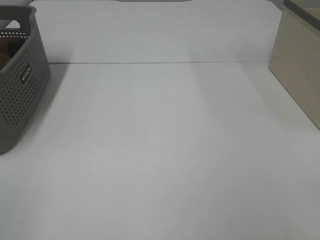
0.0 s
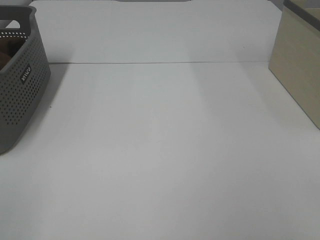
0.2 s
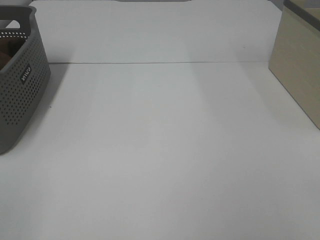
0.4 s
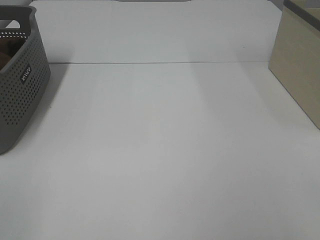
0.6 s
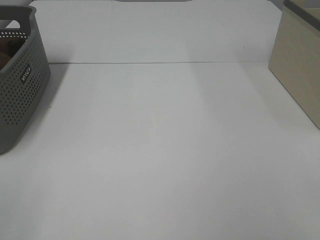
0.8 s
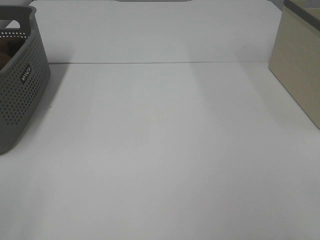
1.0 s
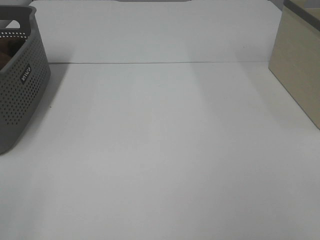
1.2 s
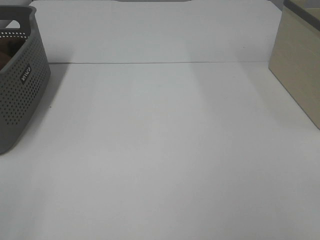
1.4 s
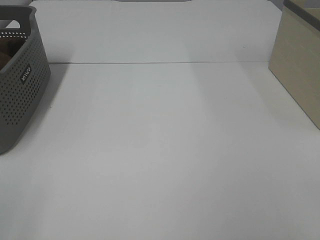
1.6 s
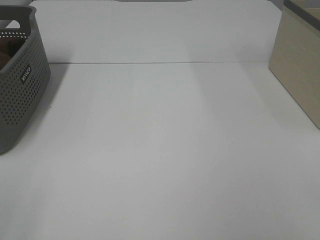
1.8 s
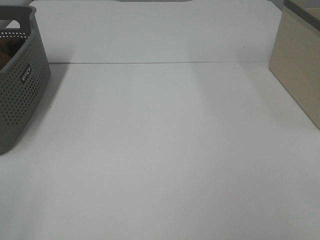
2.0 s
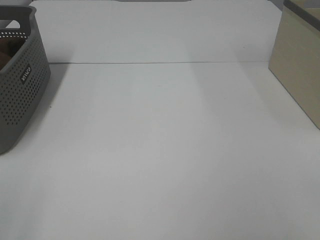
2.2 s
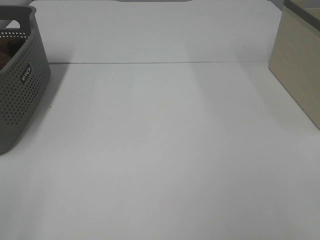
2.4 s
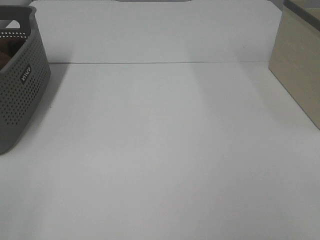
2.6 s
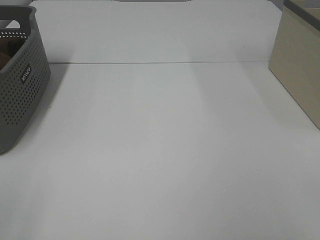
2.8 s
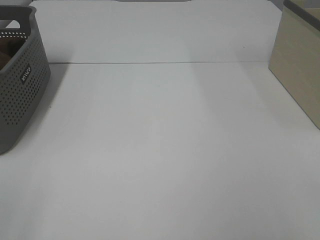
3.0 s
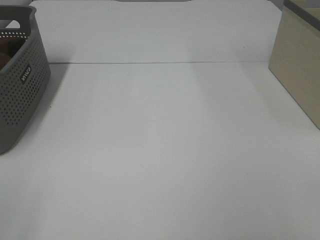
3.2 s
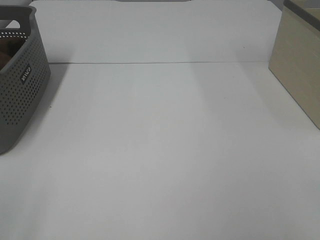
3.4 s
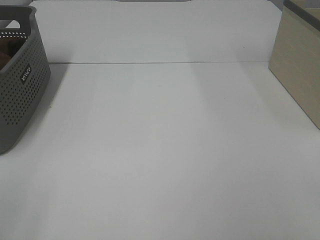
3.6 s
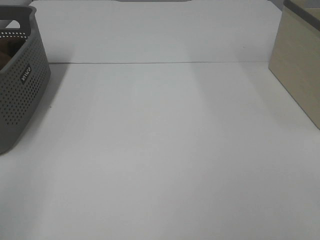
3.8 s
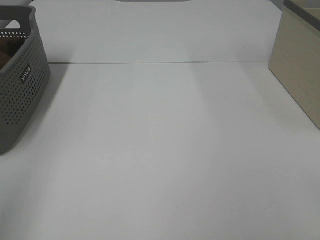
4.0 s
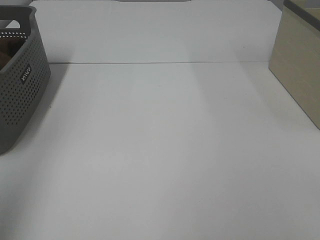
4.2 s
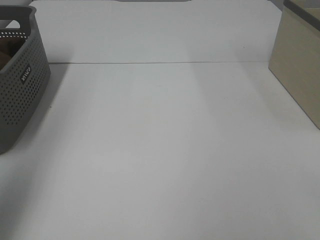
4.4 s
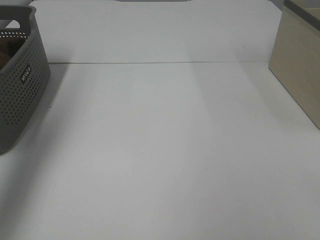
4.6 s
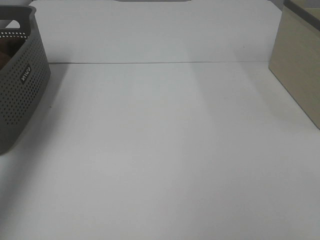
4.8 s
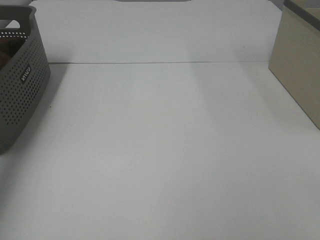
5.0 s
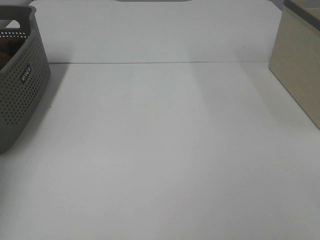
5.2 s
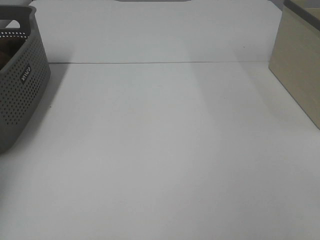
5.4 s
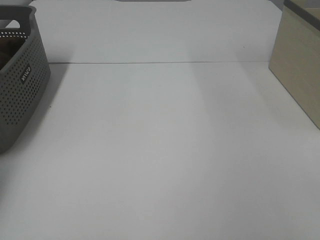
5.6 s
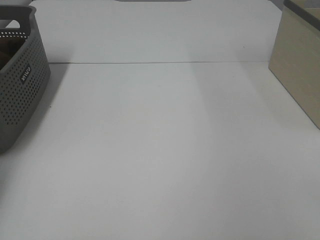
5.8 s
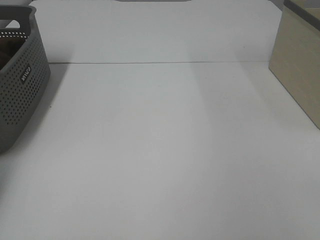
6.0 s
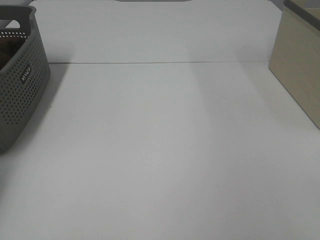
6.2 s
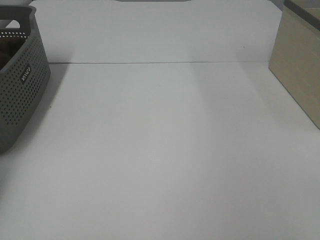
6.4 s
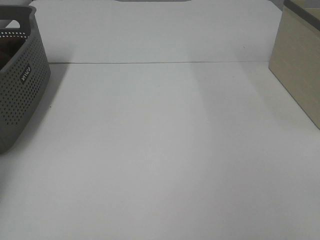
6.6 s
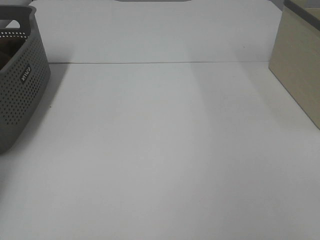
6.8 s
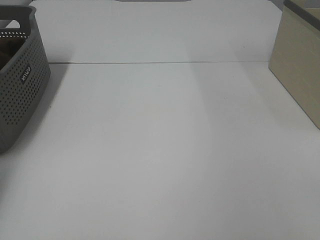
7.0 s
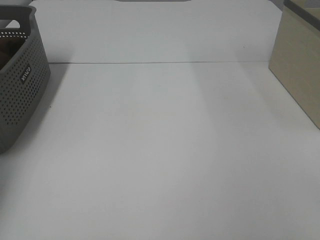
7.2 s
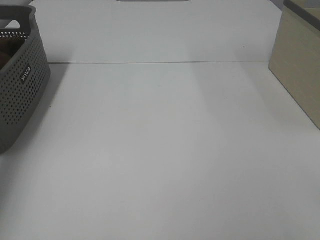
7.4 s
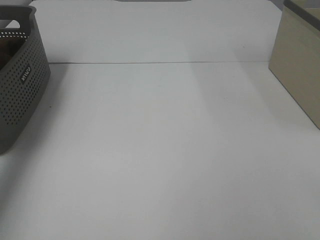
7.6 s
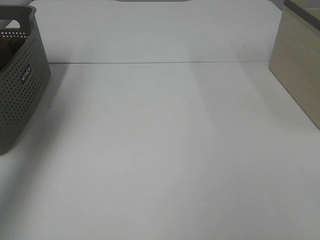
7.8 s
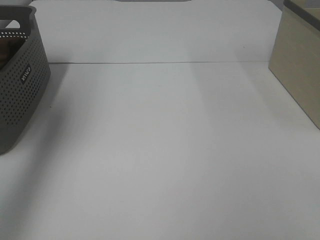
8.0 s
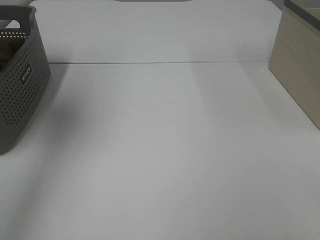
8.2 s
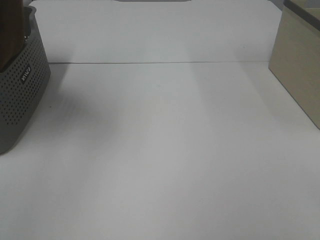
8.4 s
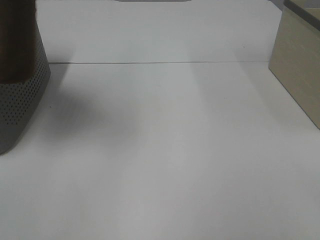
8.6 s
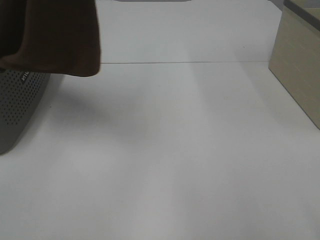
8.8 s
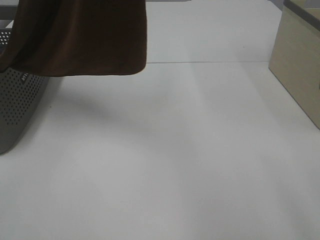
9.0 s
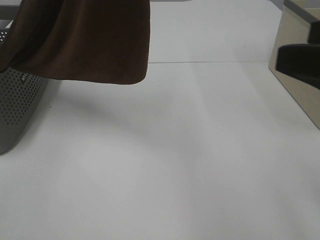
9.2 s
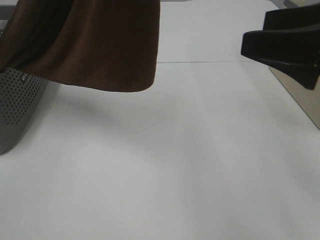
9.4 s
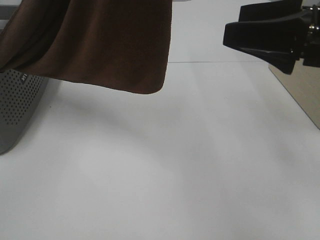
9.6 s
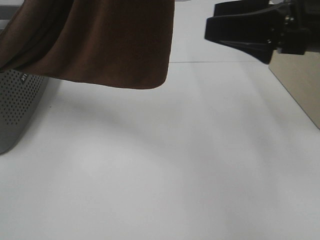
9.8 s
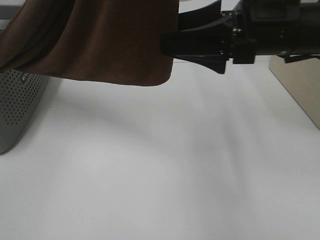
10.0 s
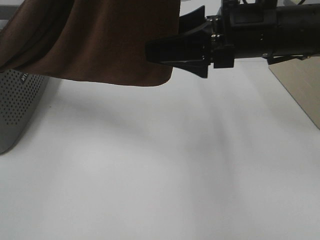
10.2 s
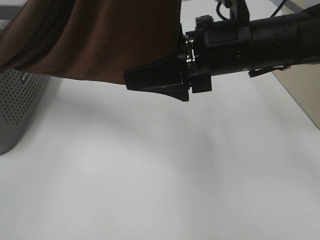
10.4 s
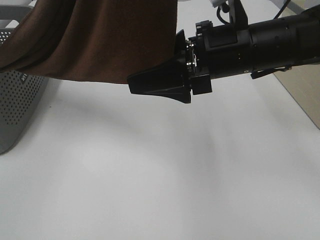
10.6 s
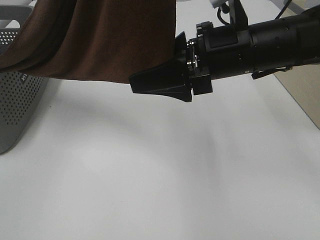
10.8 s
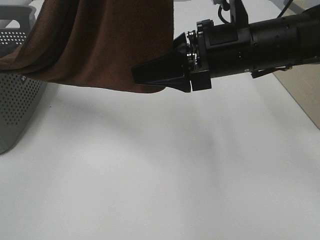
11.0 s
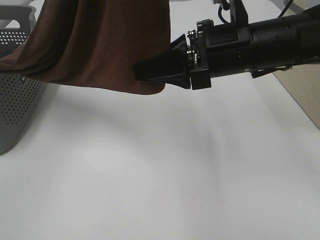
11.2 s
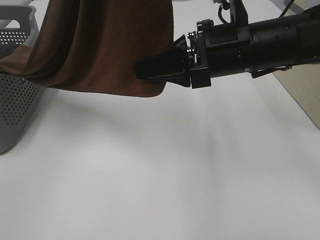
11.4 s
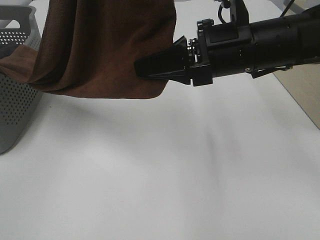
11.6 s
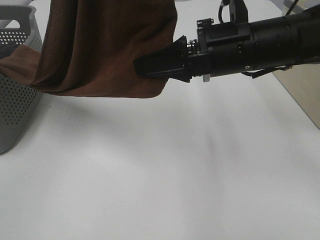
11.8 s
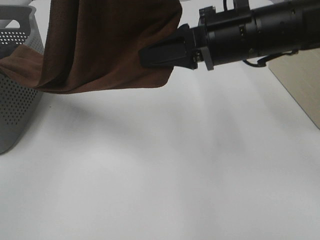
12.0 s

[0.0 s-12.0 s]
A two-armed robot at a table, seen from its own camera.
Task of the whole recording: Remove the towel and place it.
Step, 8.0 to 11.6 s: Right hand: grab a corner of the brown towel and straighten it.
0.0 to 3.0 s: Both grippers stay put.
3.0 to 4.4 s: The left gripper heads forward and upward, covering roughly 25 cm.
4.4 to 6.0 s: The left gripper is displaced forward and downward by roughly 35 cm.
6.0 to 7.6 s: The left gripper shifts roughly 20 cm upward and to the right, and closes up.
7.6 to 9.0 s: The right gripper travels forward by about 10 cm, while the left gripper moves to the right, backward and upward, roughly 30 cm.
9.0 to 10.4 s: The right gripper heads forward, to the left and downward, covering roughly 25 cm.
10.4 to 12.0 s: The right gripper closes its fingers.

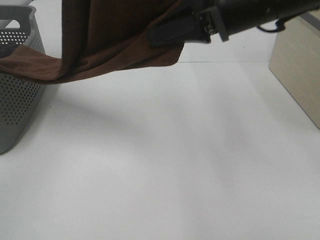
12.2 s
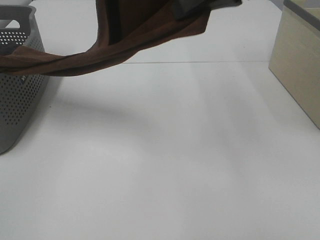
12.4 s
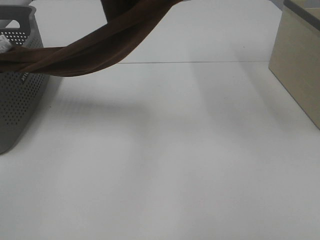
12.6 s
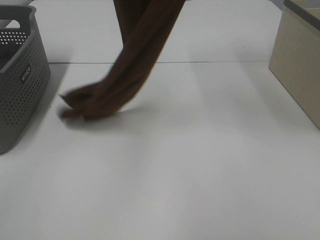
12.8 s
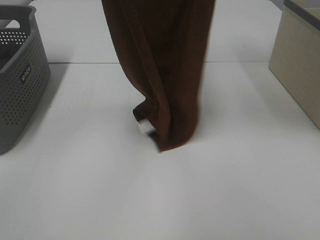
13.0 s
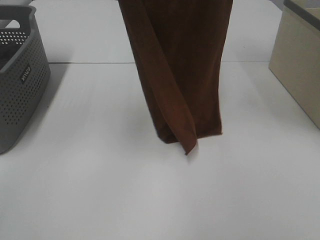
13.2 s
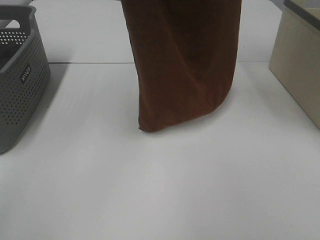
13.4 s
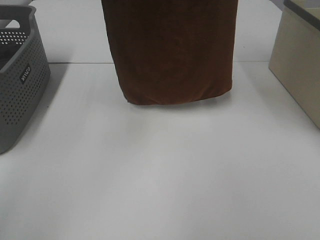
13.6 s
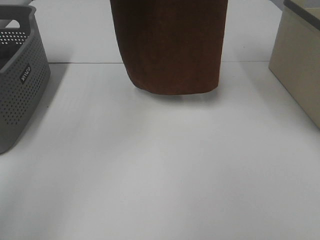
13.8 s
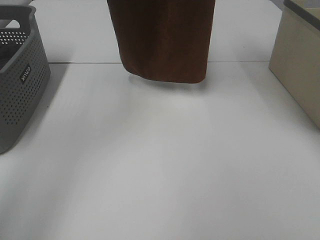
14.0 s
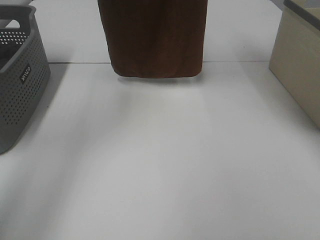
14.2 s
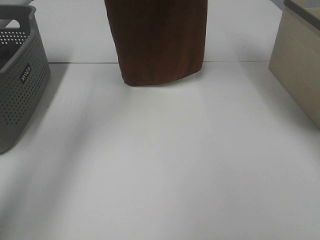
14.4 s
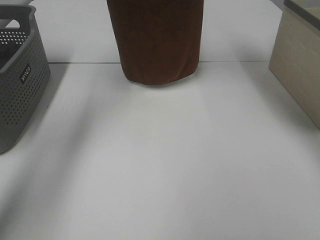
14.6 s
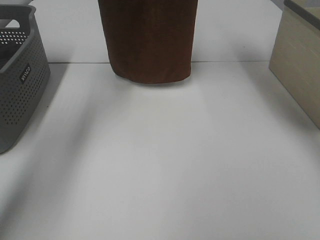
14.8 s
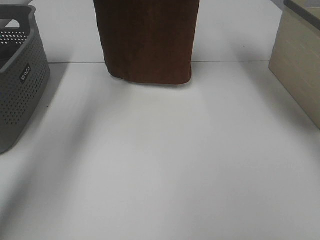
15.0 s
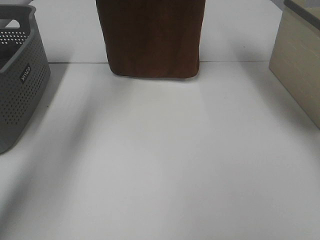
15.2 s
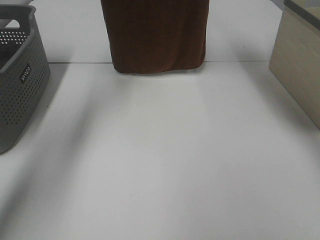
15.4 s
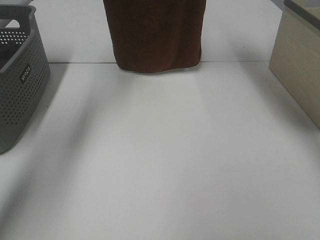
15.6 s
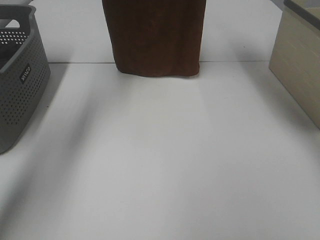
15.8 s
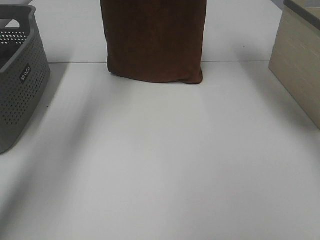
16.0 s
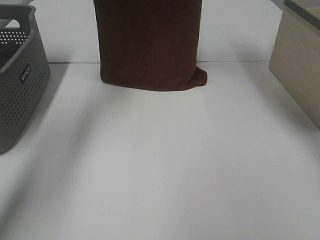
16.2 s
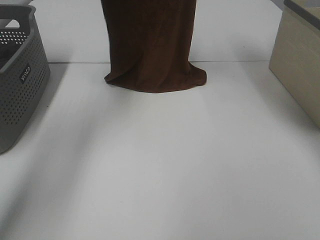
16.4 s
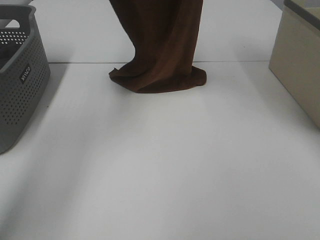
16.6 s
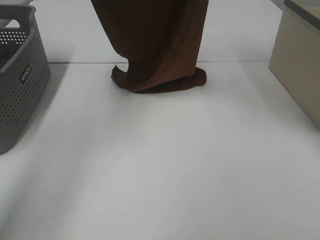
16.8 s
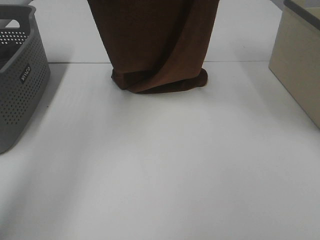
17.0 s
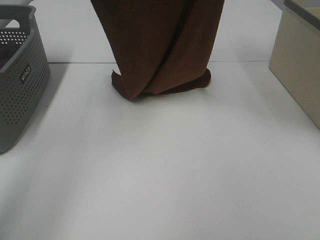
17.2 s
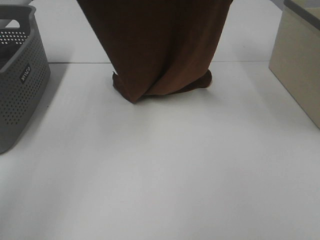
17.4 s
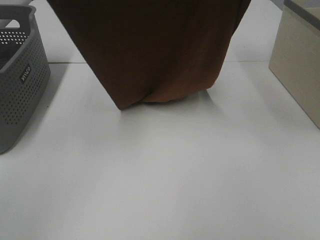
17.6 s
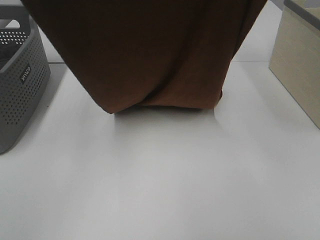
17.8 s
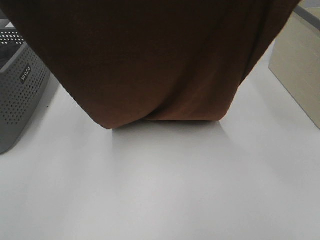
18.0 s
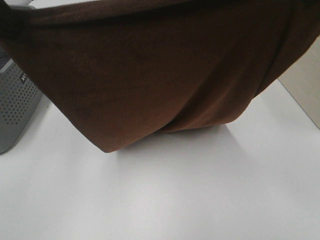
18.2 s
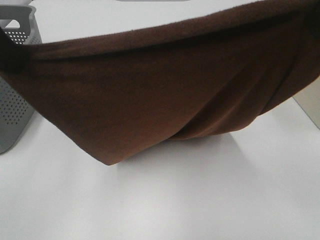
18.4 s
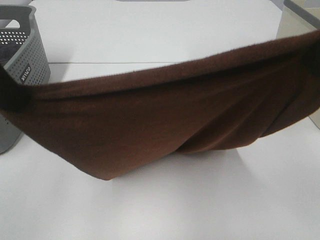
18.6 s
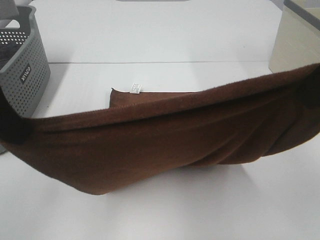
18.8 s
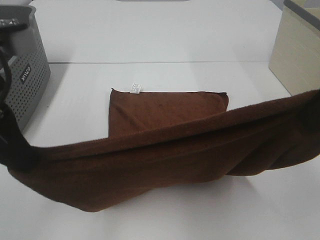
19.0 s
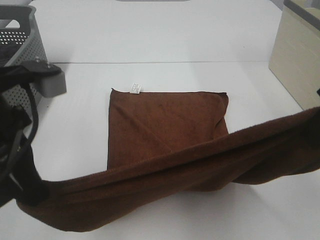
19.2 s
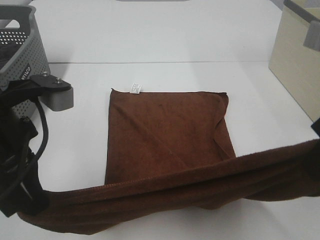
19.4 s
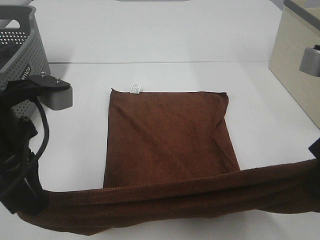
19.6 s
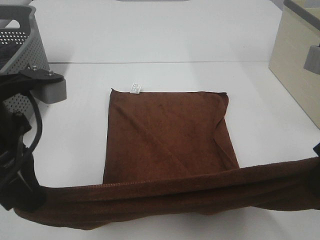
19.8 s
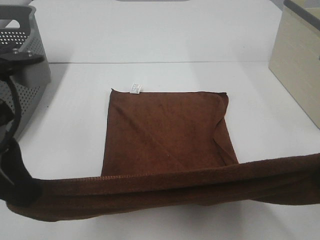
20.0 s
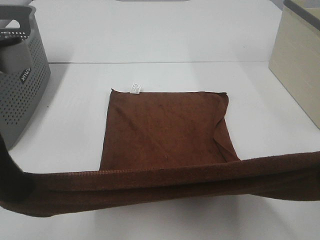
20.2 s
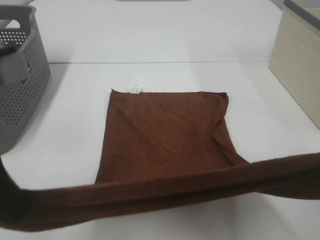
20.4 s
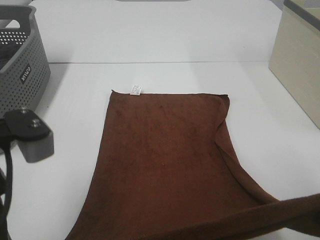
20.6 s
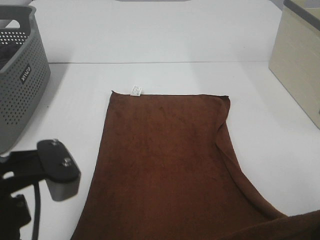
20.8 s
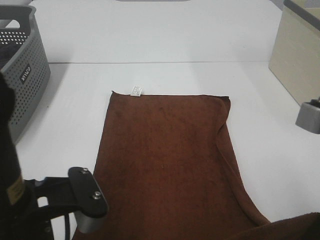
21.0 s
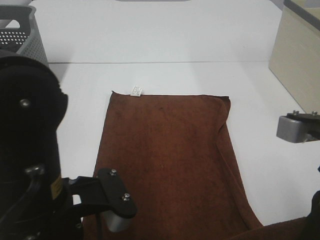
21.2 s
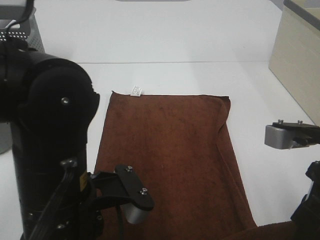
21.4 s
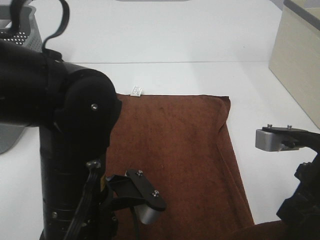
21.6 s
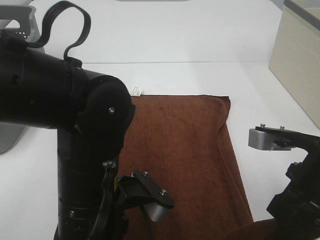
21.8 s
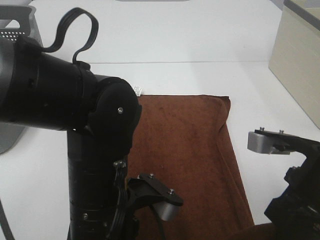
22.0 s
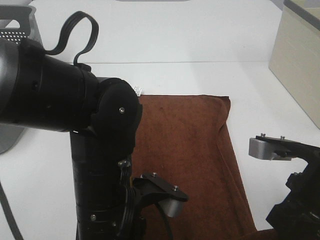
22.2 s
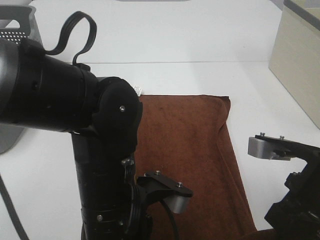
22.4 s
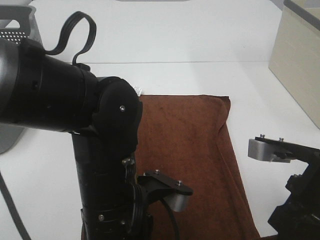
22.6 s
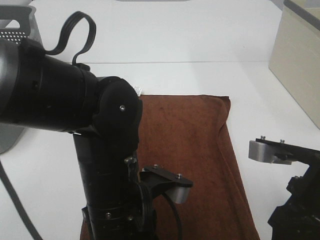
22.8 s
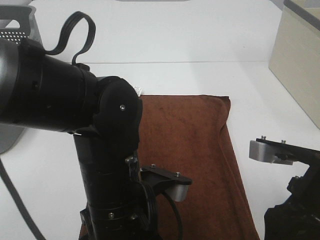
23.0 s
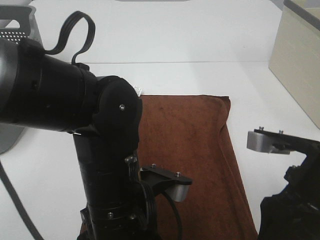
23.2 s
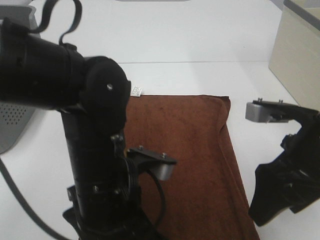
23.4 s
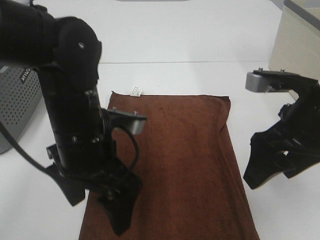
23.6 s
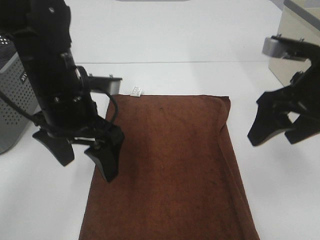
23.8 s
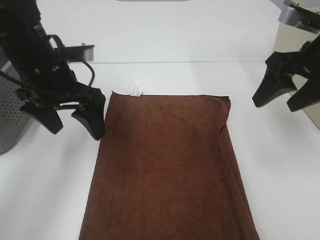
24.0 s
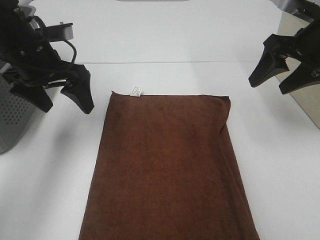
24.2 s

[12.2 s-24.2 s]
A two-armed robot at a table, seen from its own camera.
Task of the whole recording: Remove the towel and place it.
Step, 12.2 to 18.4 s: Left hand: spread the brown towel flat on the table.
Step, 12.2 to 18.4 s: Right hand: spread the brown towel flat on the table.
12.2 to 13.8 s: The right gripper shifts some 25 cm upward and forward, while the left gripper travels forward by about 15 cm.
13.8 to 15.2 s: The grippers both shift forward and downward by approximately 10 cm.
15.2 to 16.6 s: Both grippers move backward, some 5 cm.
16.6 to 18.2 s: The two grippers go some 20 cm backward.
18.2 to 19.8 s: The two grippers go roughly 15 cm downward.
19.8 to 21.2 s: The right gripper is displaced downward by approximately 5 cm. Meanwhile the left gripper travels to the right, downward and backward by about 10 cm.
21.2 to 22.6 s: The left gripper shifts roughly 5 cm to the right. The right gripper shifts by roughly 5 cm.
22.6 to 24.2 s: The left gripper travels forward and to the left by about 25 cm, and opens up; the right gripper moves forward, roughly 20 cm, and opens up.
